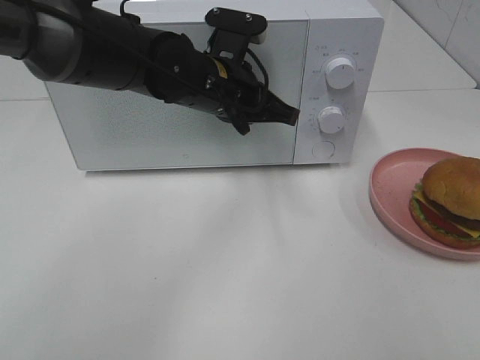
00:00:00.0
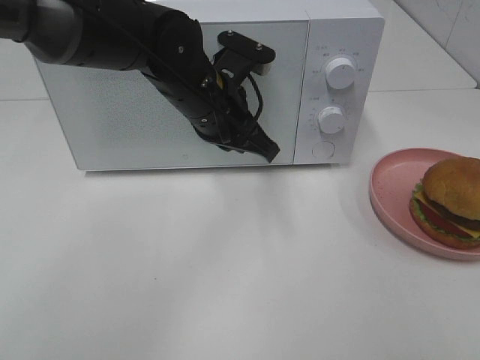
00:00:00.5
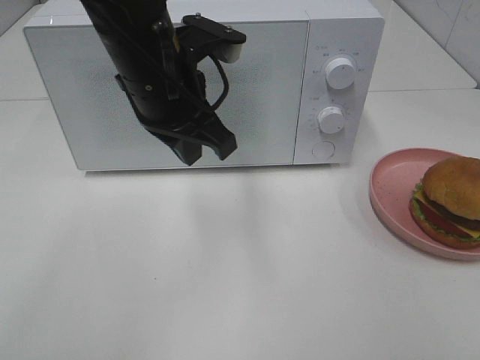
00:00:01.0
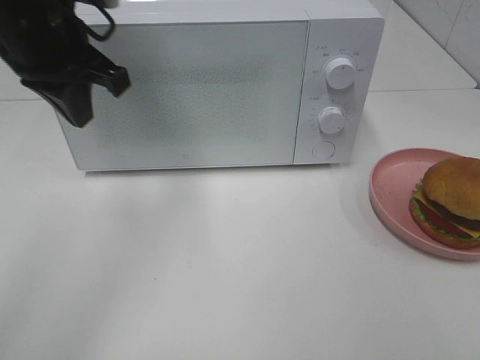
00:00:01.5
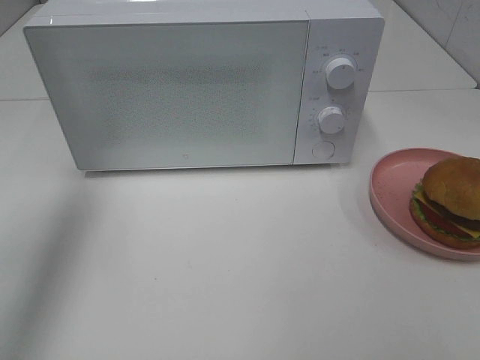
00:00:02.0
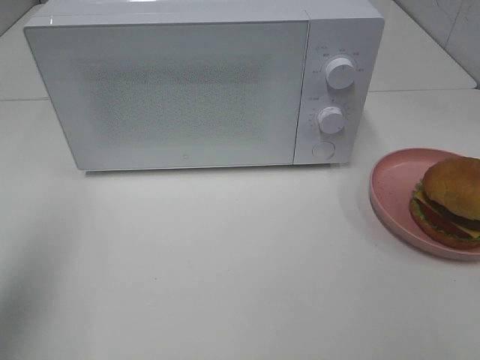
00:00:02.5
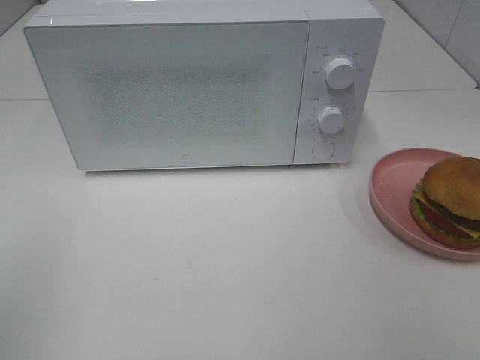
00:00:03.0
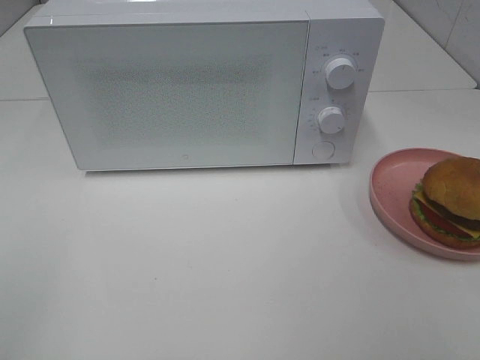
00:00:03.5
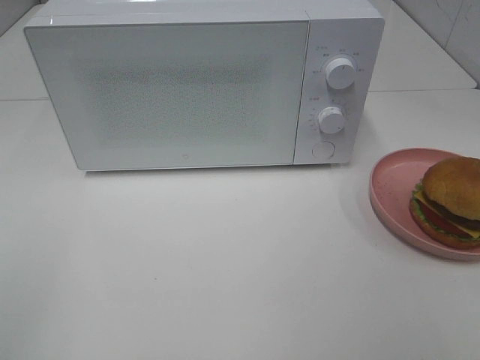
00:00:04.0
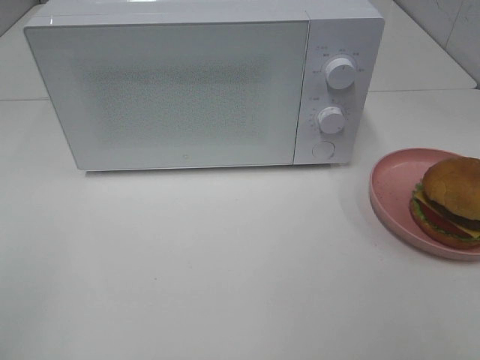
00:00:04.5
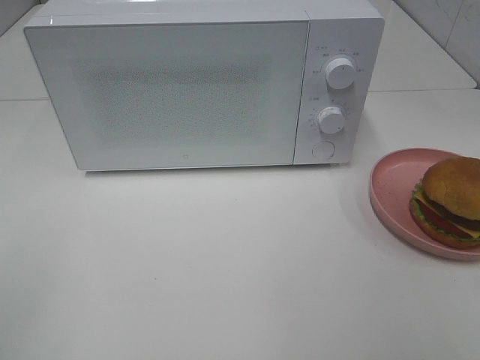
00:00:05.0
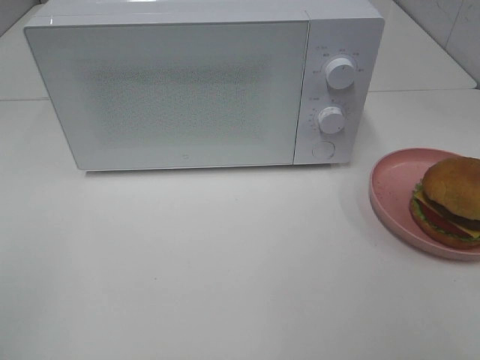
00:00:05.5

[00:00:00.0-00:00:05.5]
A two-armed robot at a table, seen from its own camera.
Task of the whole recording: Heat the burger.
00:00:00.0 to 00:00:02.0: The left gripper shifts roughly 30 cm to the left and upward.
00:00:02.0 to 00:00:03.5: The left gripper shifts some 30 cm backward.

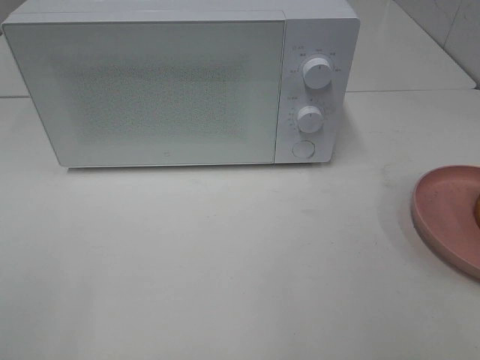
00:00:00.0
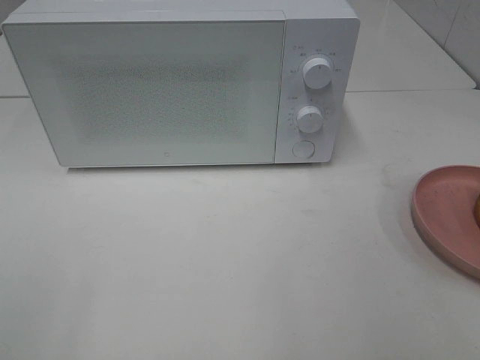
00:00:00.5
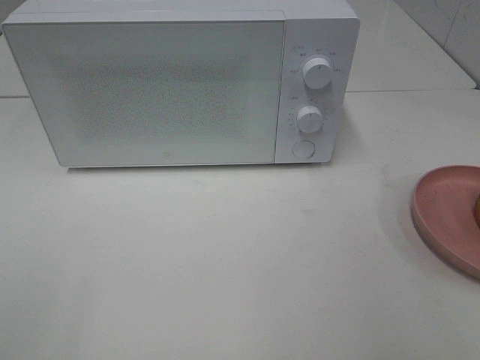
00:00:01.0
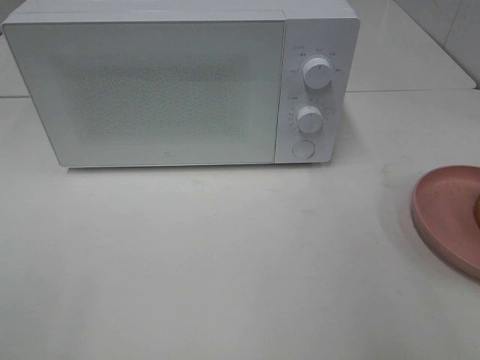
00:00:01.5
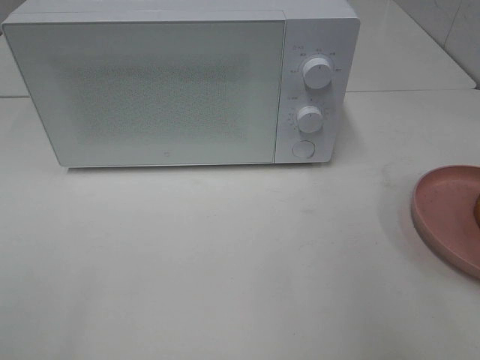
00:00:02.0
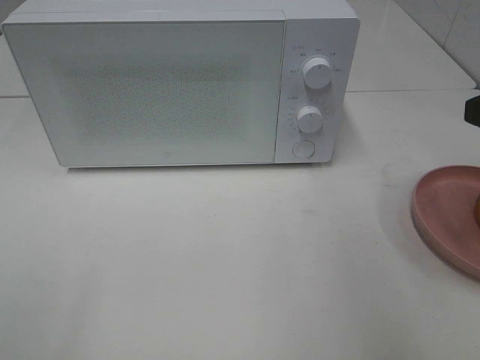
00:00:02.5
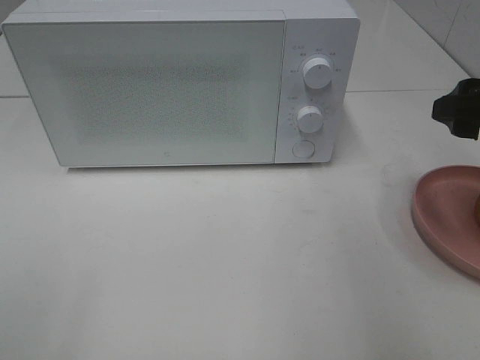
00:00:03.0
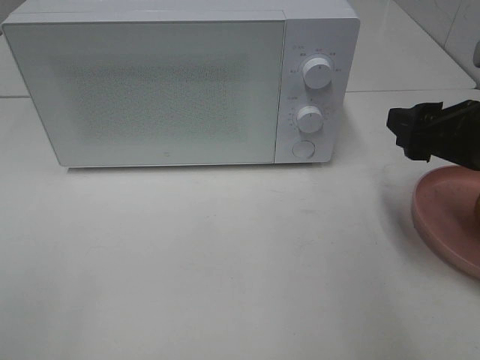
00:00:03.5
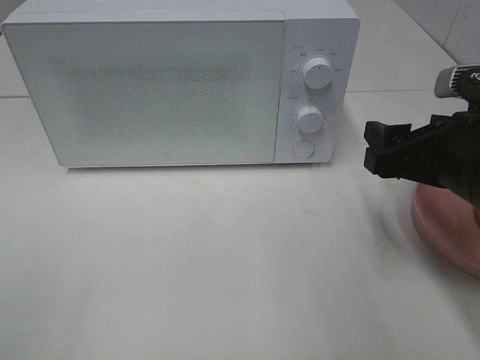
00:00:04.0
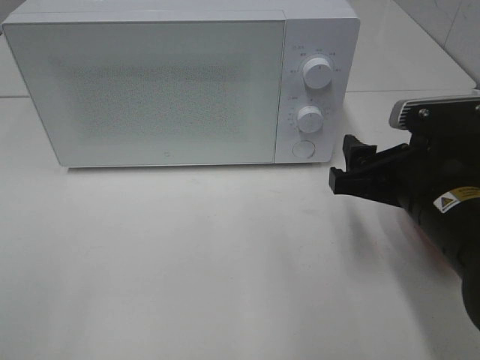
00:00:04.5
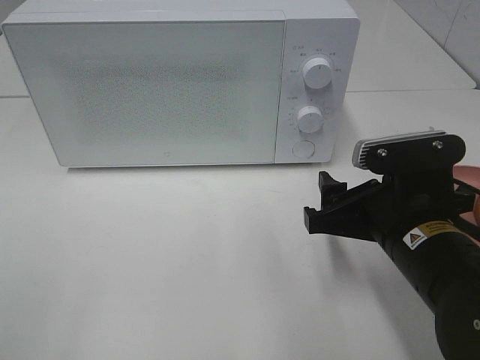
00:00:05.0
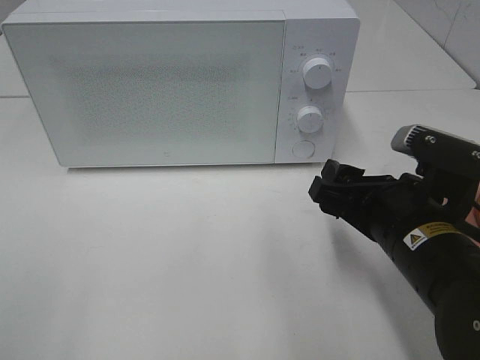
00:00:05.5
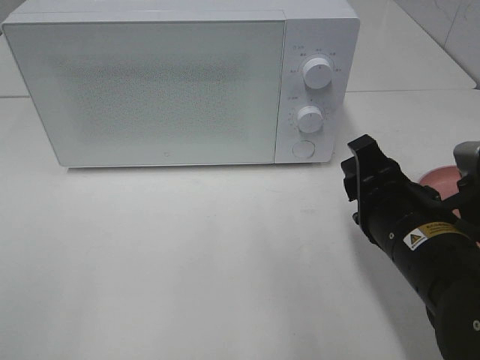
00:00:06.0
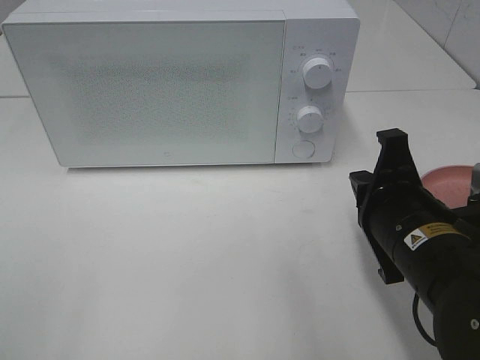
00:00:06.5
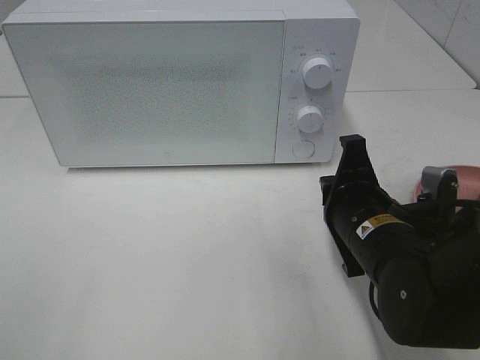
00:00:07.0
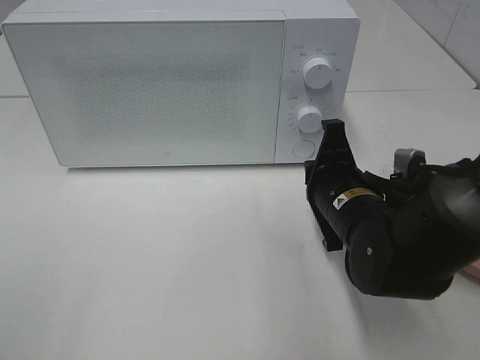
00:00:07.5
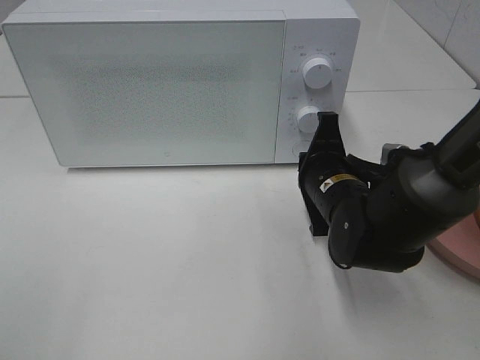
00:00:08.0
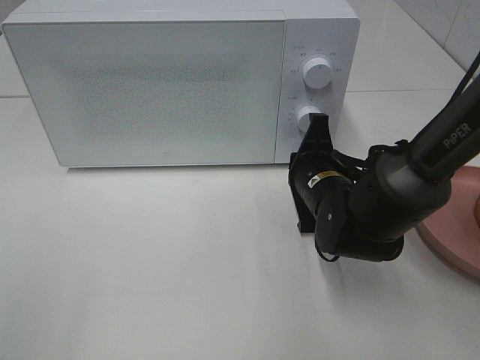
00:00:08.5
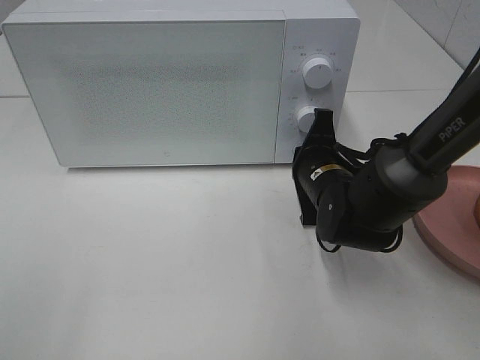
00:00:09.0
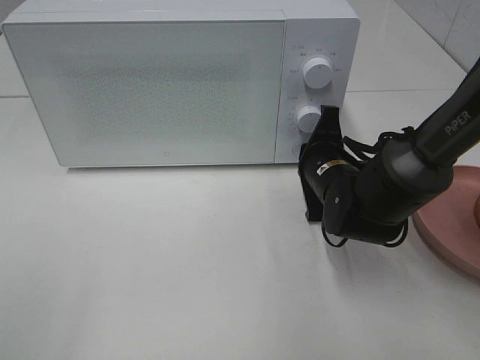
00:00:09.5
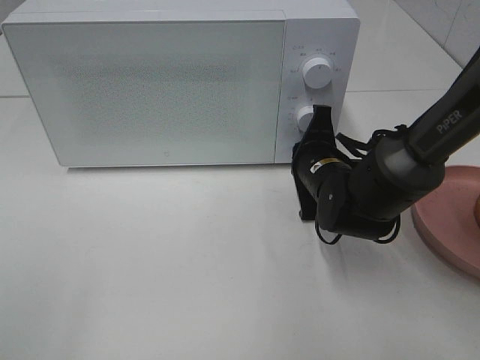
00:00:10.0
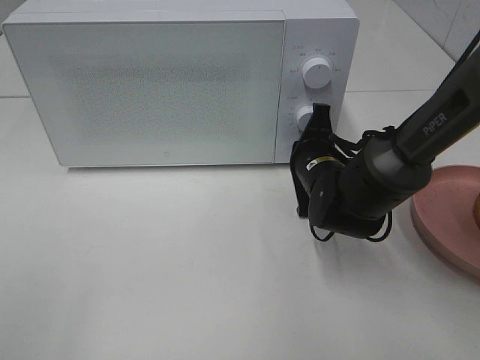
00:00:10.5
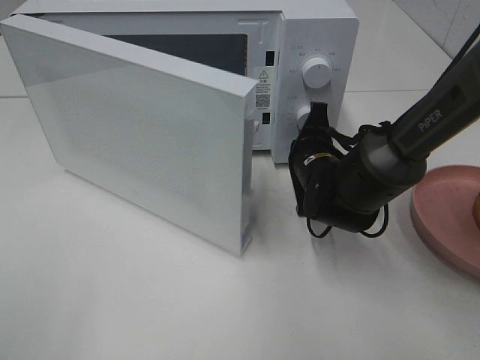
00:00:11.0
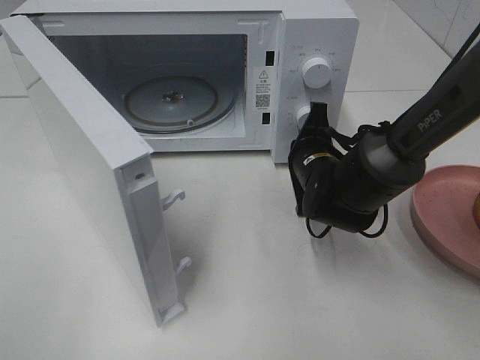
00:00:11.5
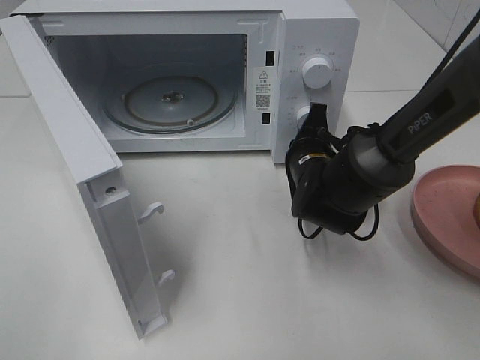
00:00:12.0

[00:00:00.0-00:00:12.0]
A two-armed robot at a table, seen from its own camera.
Task of the whole recording: Heat the burger.
00:00:02.0 to 00:00:04.0: The right gripper heads downward, forward and to the left, covering approximately 15 cm.
00:00:04.0 to 00:00:06.0: The right gripper goes approximately 5 cm to the left, and closes its fingers.
00:00:06.0 to 00:00:08.0: The right gripper is displaced forward by about 10 cm, and closes up.
00:00:08.0 to 00:00:10.0: There are only small adjustments of the grippers.

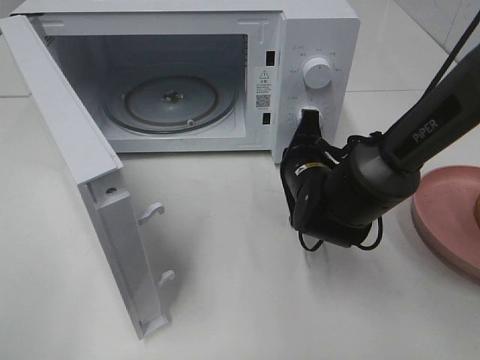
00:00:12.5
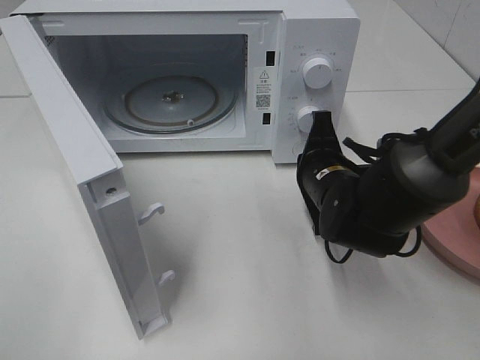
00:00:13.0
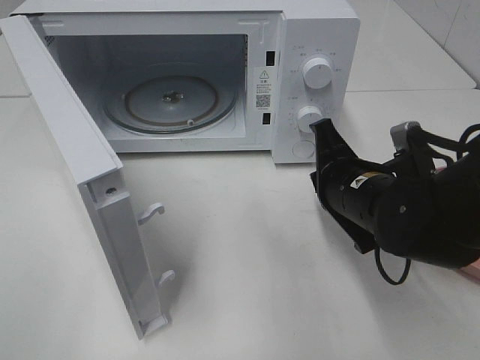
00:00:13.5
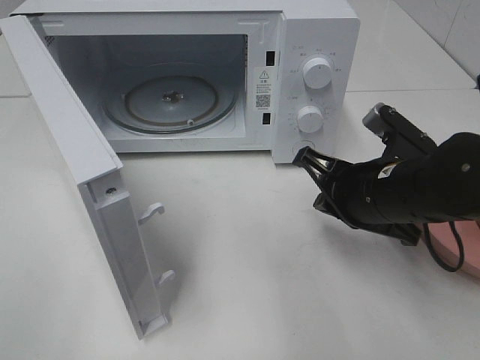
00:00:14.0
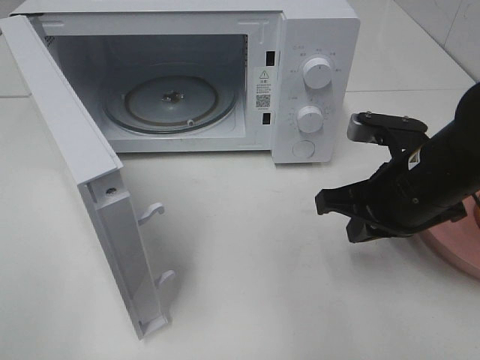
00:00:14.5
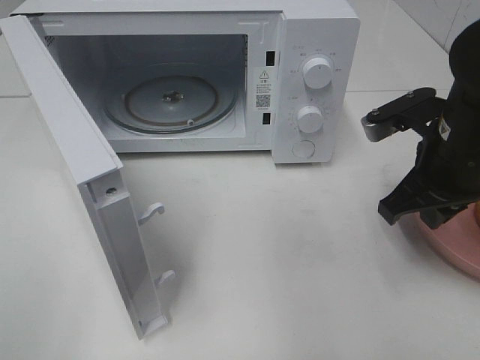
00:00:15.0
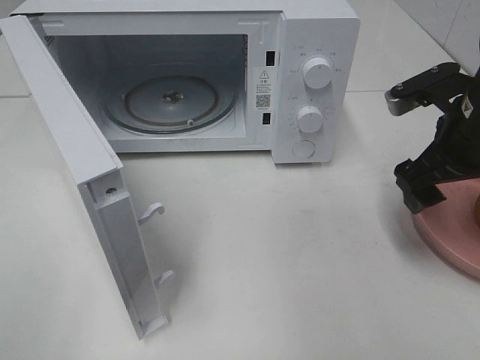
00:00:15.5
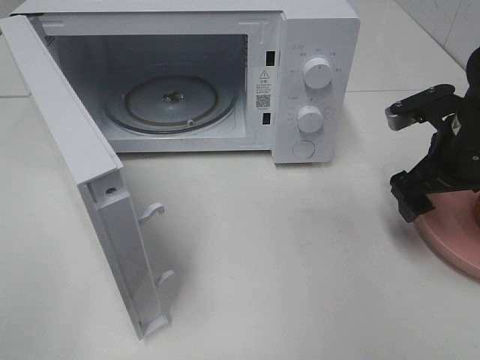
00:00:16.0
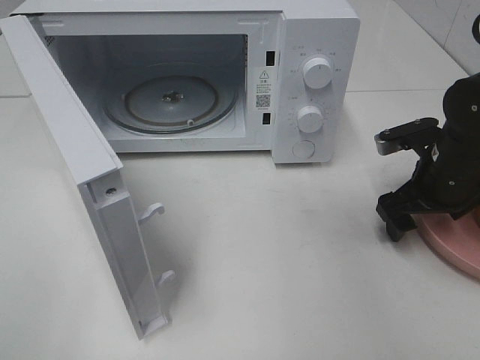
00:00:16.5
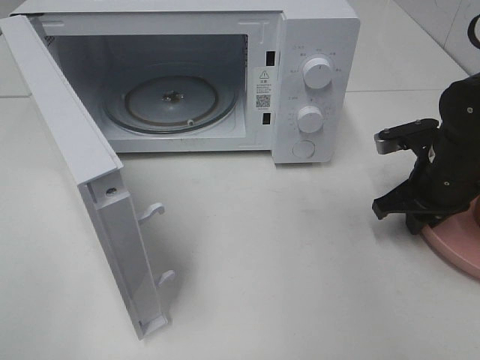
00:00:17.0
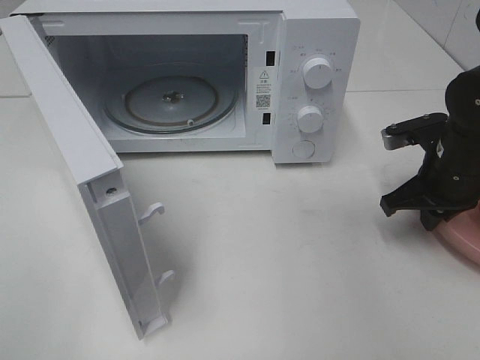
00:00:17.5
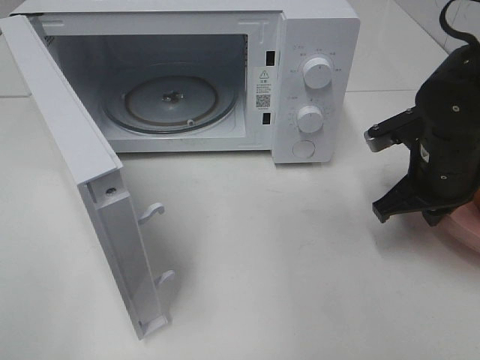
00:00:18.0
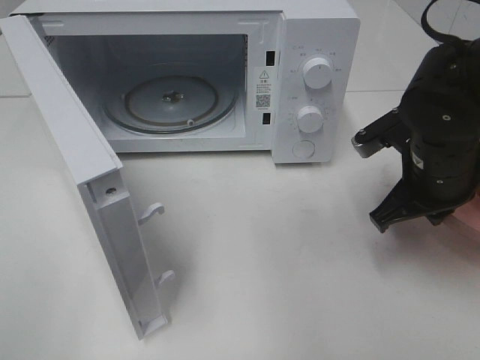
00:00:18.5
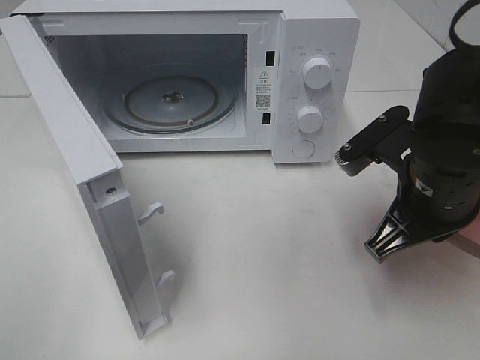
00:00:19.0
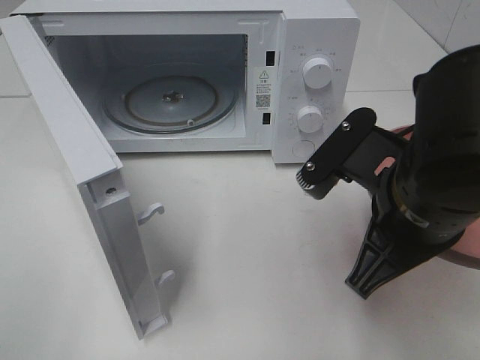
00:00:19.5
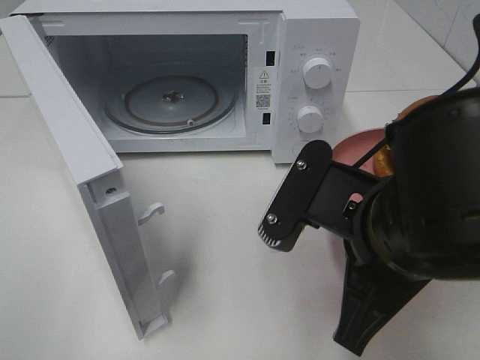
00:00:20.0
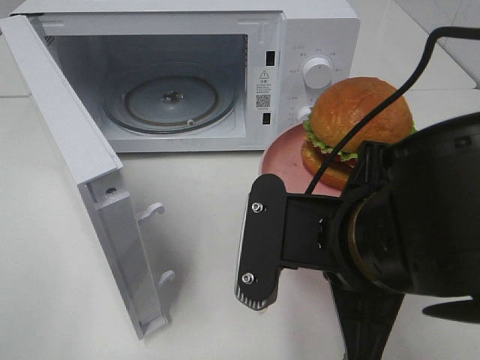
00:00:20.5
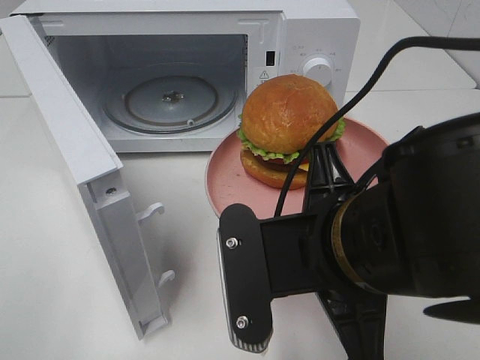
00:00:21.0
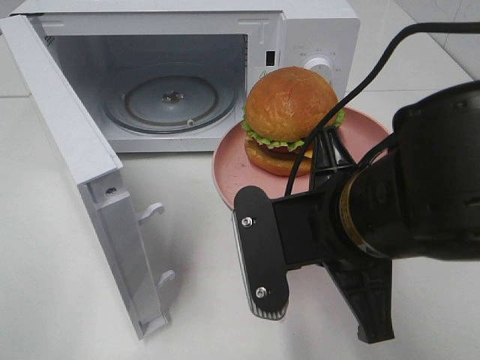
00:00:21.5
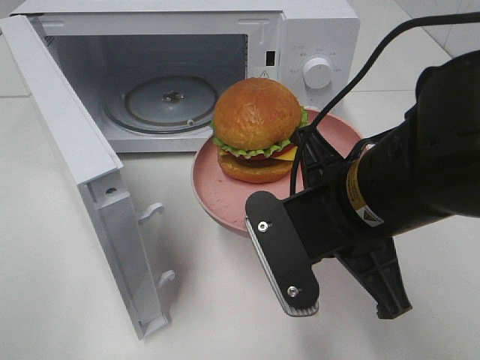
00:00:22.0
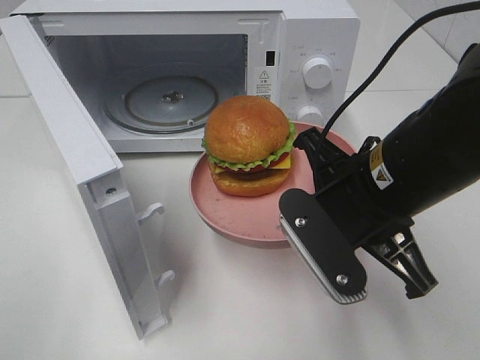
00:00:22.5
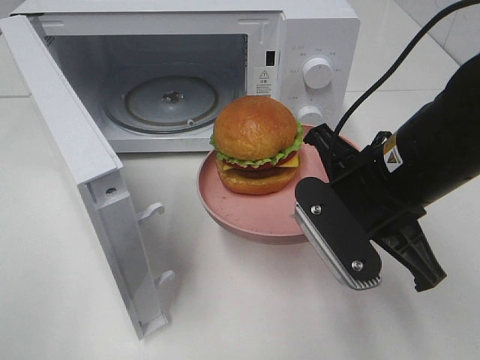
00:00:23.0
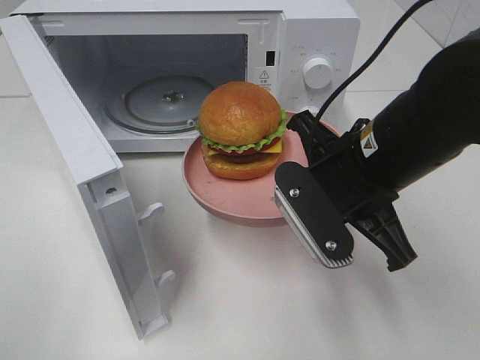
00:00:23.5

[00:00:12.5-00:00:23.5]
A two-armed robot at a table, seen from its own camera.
Task of the whole recording: Heat the burger.
Step, 00:00:13.0 to 00:00:17.5: Right hand: grab the plate with the hamburger.
00:00:12.5 to 00:00:14.5: The right gripper is displaced upward, backward and to the right by roughly 15 cm.
00:00:14.5 to 00:00:16.0: The right gripper is displaced to the right and forward by about 10 cm, and opens.
00:00:16.0 to 00:00:18.0: The right gripper closes up.
00:00:18.0 to 00:00:20.0: The right gripper moves backward and to the left, roughly 20 cm.
00:00:21.5 to 00:00:23.5: The right gripper is displaced forward by about 10 cm.
